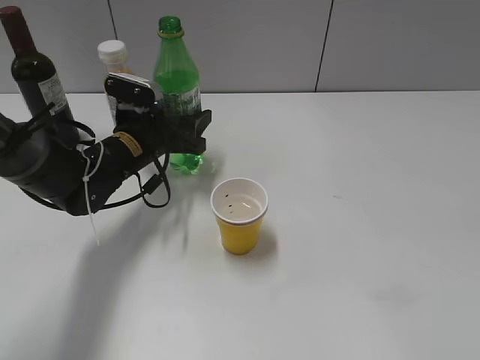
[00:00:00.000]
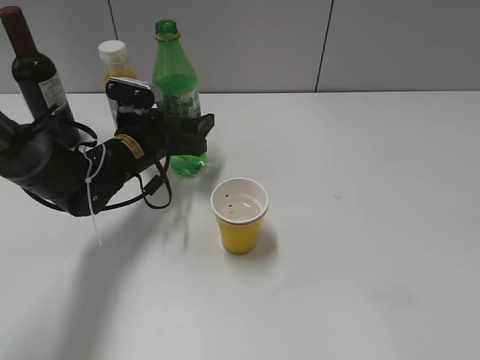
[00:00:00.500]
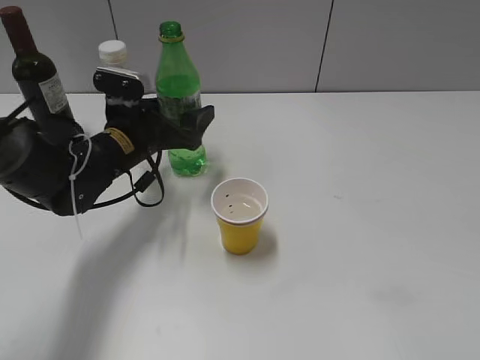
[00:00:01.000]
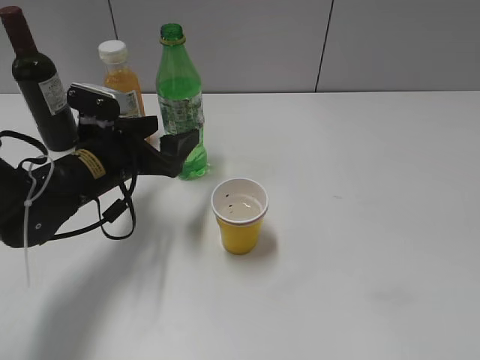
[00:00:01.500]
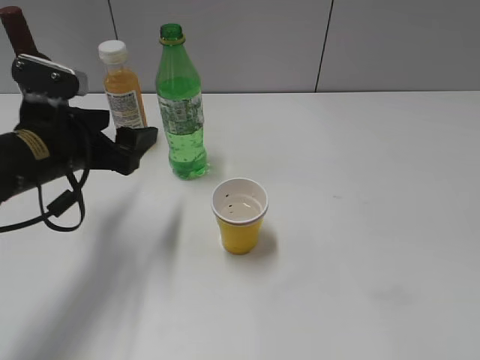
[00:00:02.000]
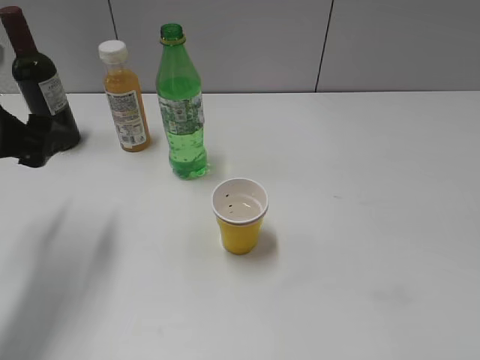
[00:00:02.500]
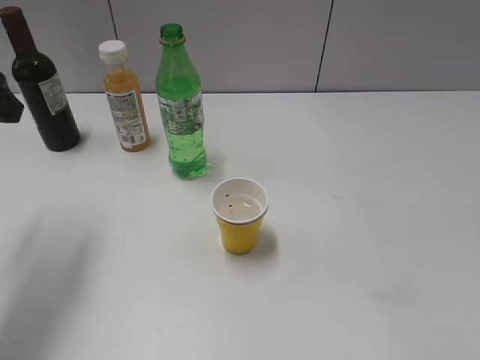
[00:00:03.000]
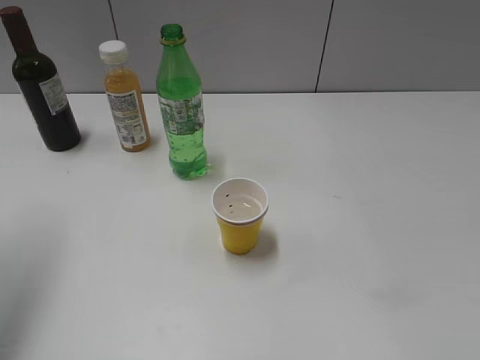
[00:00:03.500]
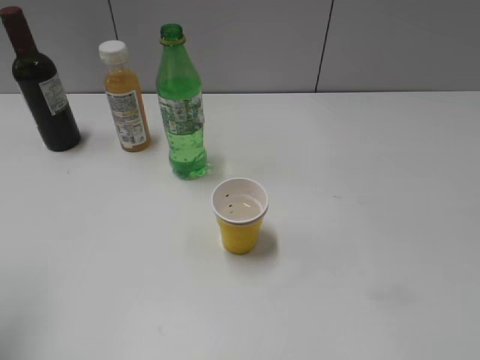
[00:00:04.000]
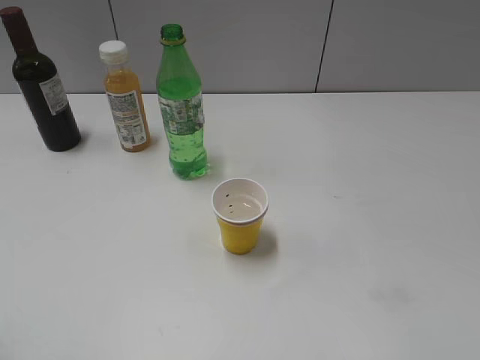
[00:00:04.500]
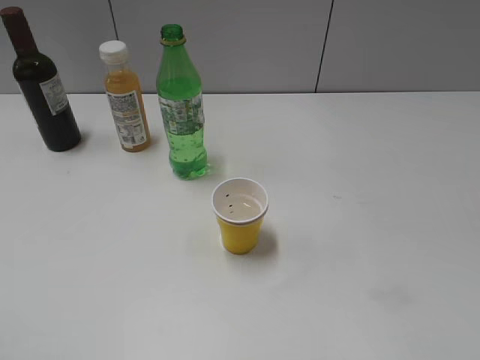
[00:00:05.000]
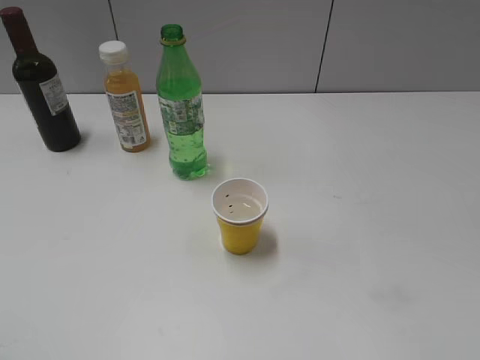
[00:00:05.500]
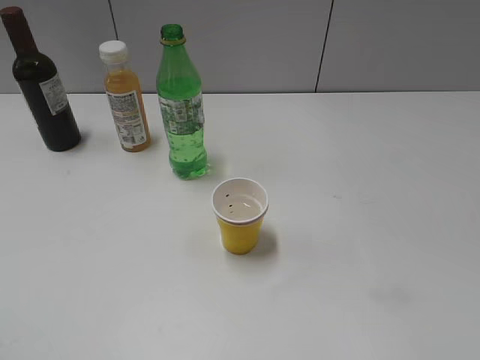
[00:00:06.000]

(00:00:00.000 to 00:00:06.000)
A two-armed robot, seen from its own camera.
00:00:00.000 - 00:00:02.000: The left gripper travels backward, upward and to the left by approximately 15 cm, and opens up.
00:00:02.000 - 00:00:04.000: The left gripper is displaced upward, backward and to the left by approximately 25 cm, and closes up.

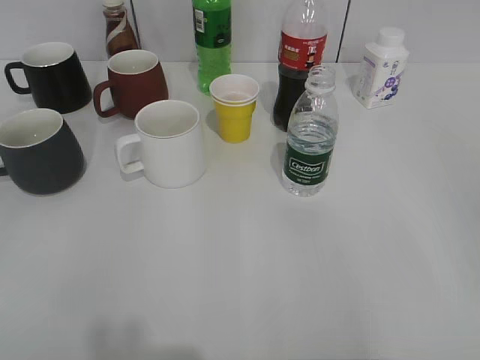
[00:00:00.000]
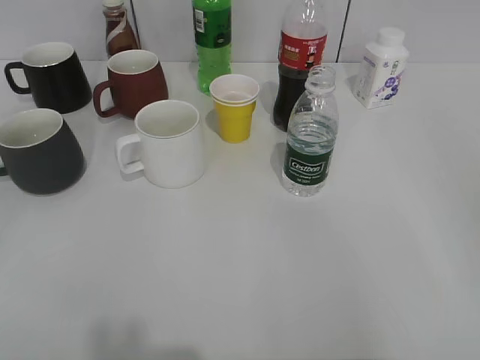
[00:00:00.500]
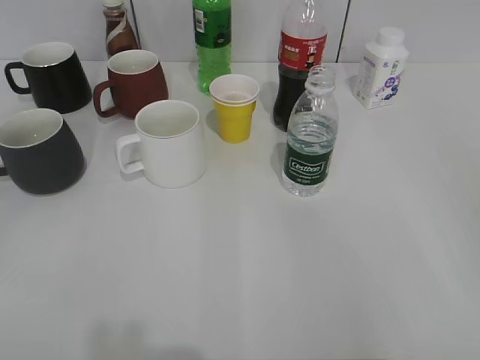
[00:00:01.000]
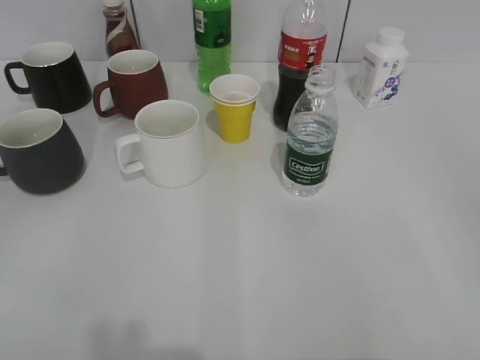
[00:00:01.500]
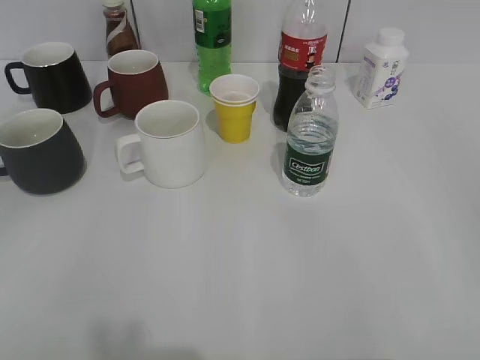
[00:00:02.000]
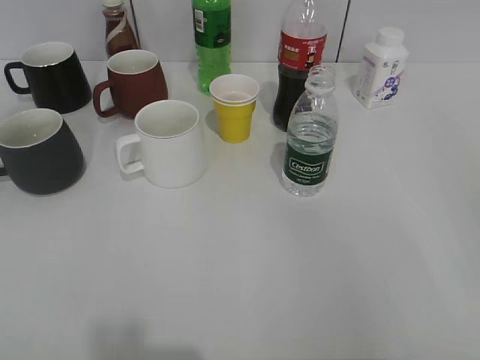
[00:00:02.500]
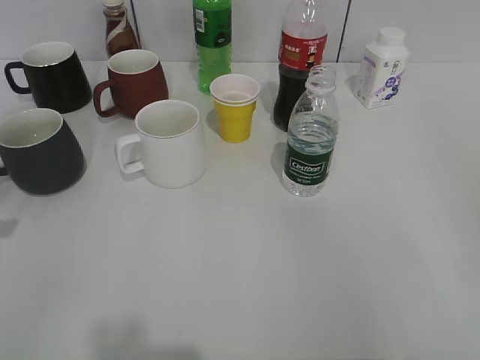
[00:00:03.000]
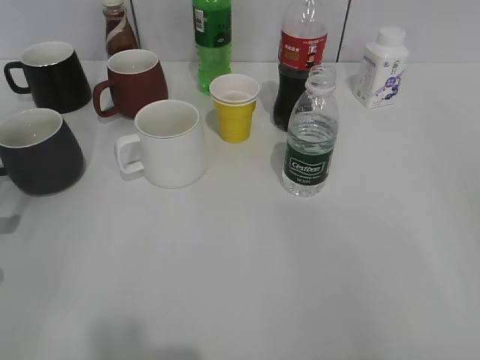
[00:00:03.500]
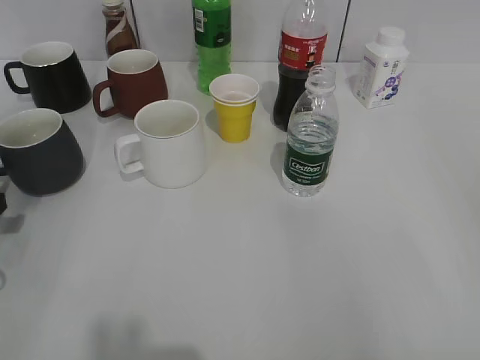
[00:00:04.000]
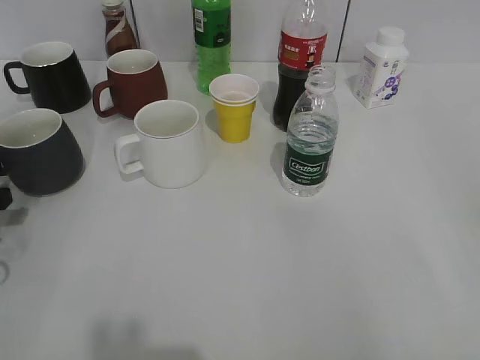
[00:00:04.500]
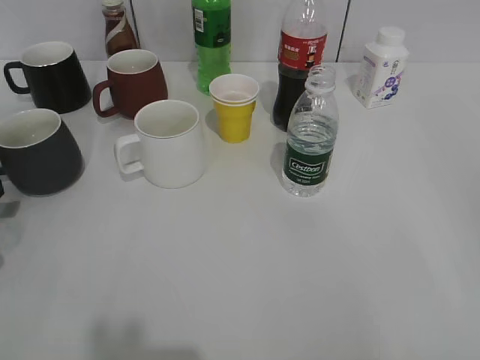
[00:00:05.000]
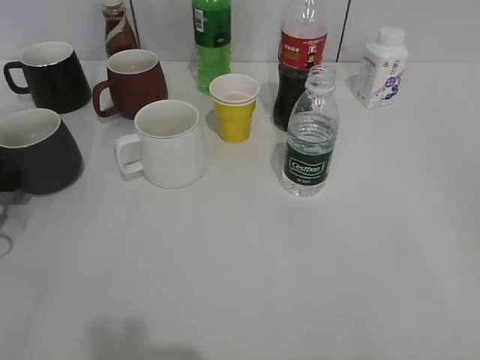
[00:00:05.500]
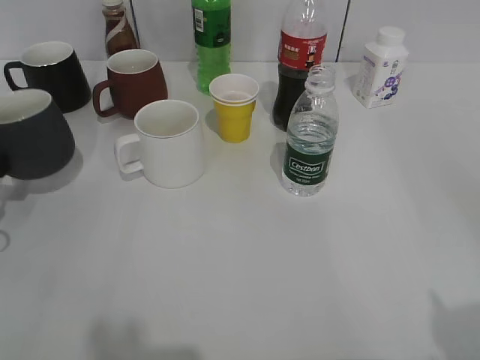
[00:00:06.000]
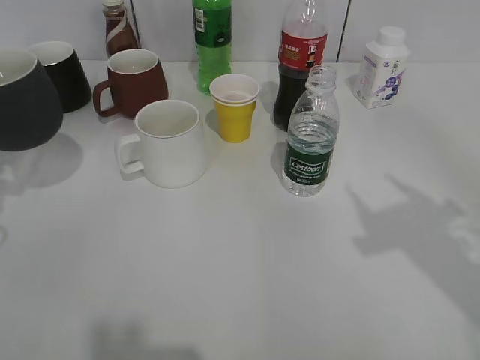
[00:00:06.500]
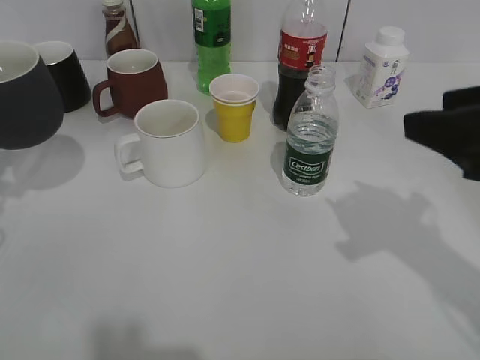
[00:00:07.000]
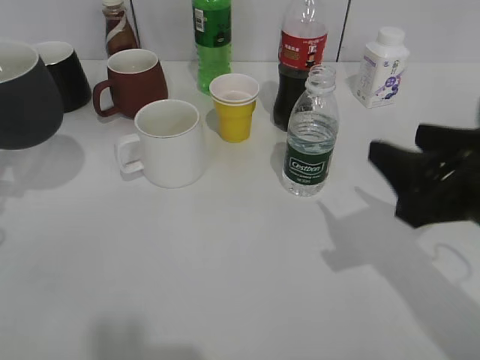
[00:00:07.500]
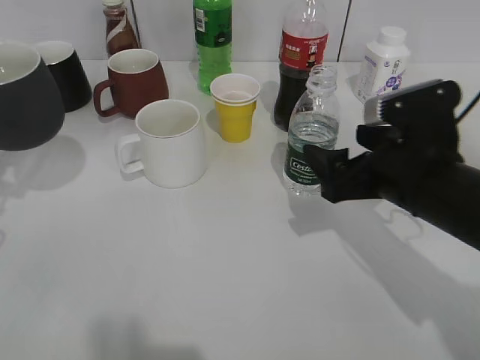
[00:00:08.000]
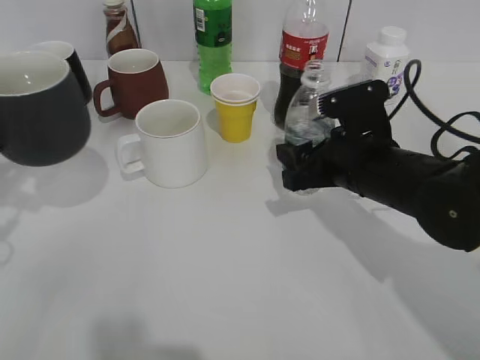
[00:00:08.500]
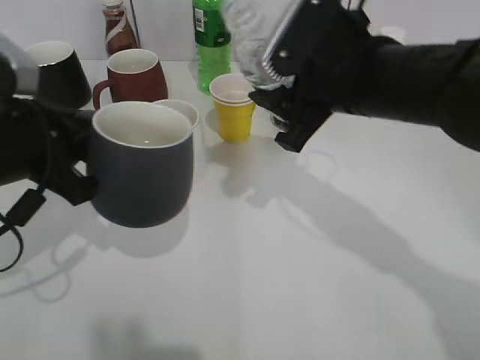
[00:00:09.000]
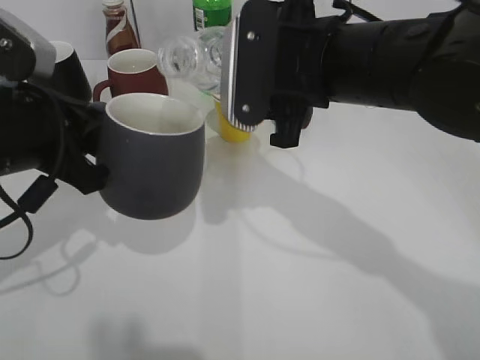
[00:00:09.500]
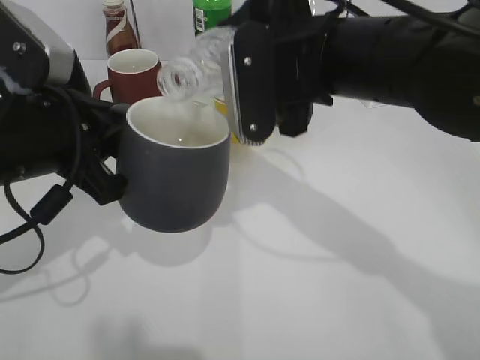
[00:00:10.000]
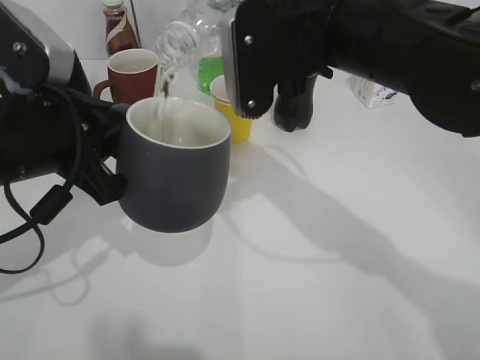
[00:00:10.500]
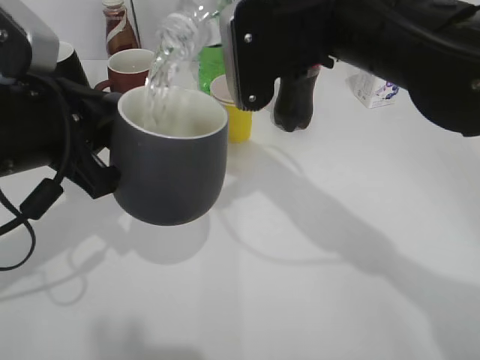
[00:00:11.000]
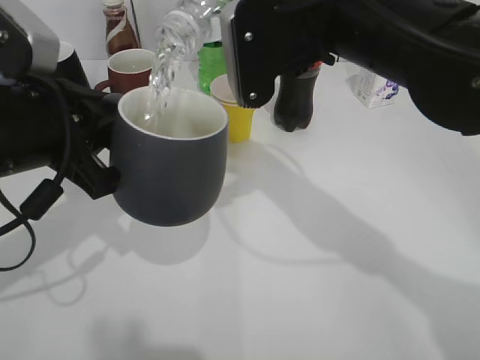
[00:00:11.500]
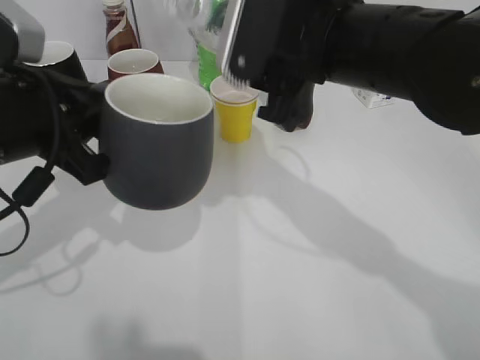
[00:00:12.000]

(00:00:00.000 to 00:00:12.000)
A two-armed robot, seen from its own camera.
Step, 00:00:07.000 - 00:00:08.000: Grasp the bottle with water with right gripper.
00:00:02.000 - 00:00:04.000: The left gripper is displaced forward and downward by some 30 cm.
00:00:04.000 - 00:00:06.000: The left gripper changes place by roughly 5 cm, and closes.
00:00:06.000 - 00:00:08.000: The left gripper travels upward by approximately 5 cm; the right gripper heads forward, downward and to the left, covering about 30 cm, and opens.
00:00:08.000 - 00:00:10.000: The right gripper travels to the left and upward by some 15 cm, and closes its fingers. Meanwhile the left gripper goes roughly 15 cm to the right.

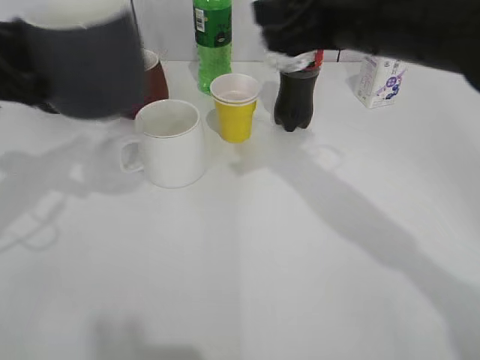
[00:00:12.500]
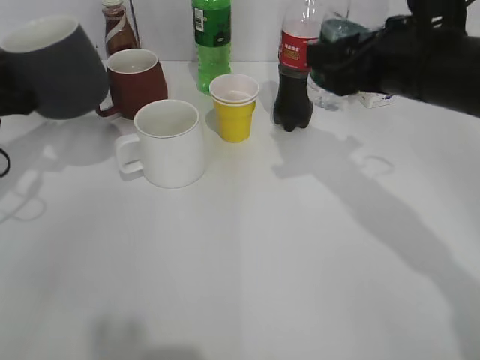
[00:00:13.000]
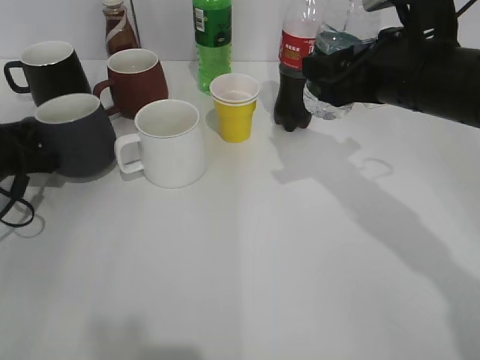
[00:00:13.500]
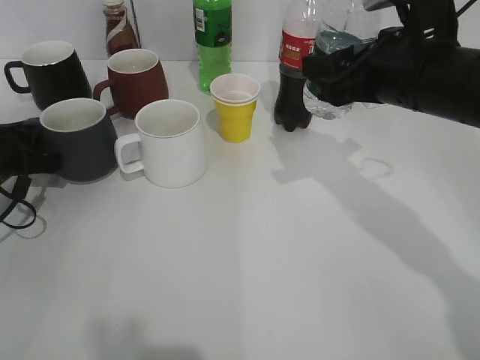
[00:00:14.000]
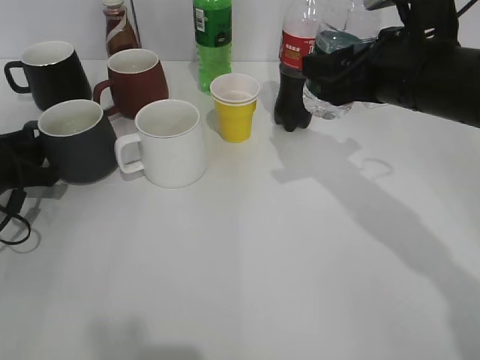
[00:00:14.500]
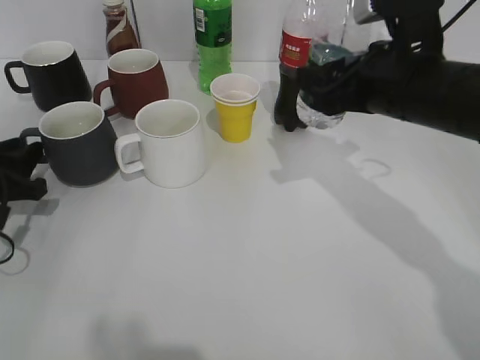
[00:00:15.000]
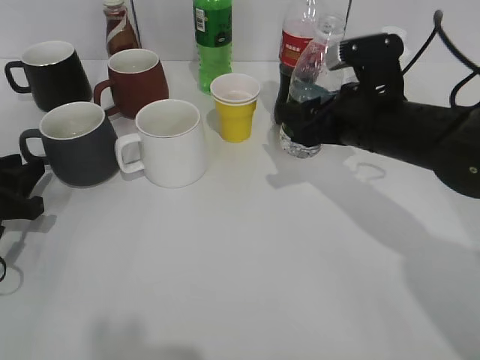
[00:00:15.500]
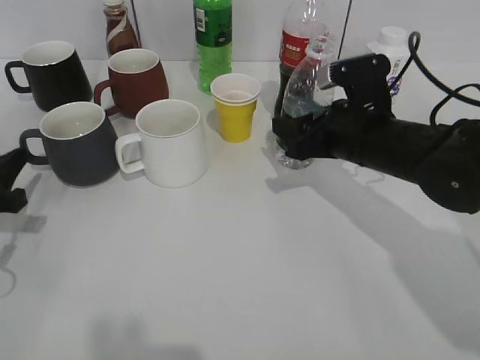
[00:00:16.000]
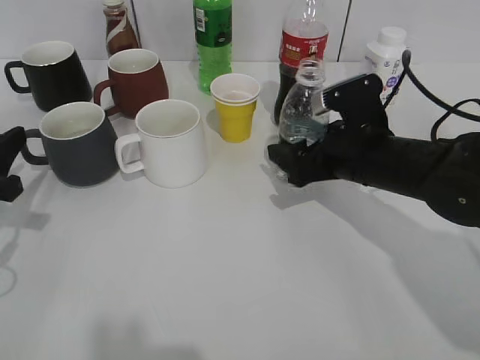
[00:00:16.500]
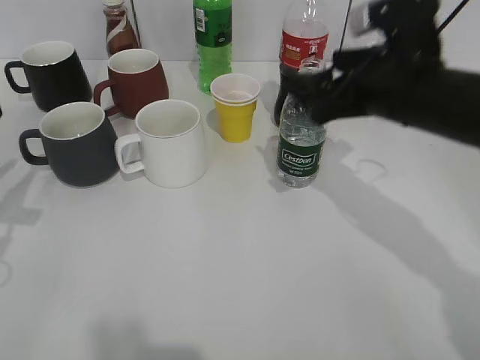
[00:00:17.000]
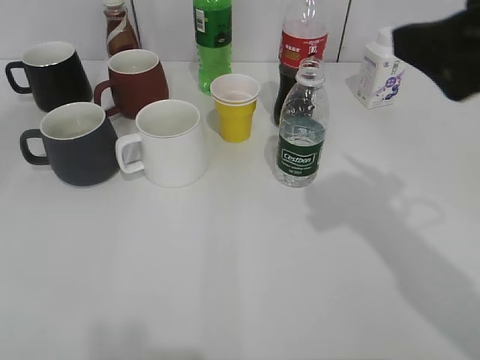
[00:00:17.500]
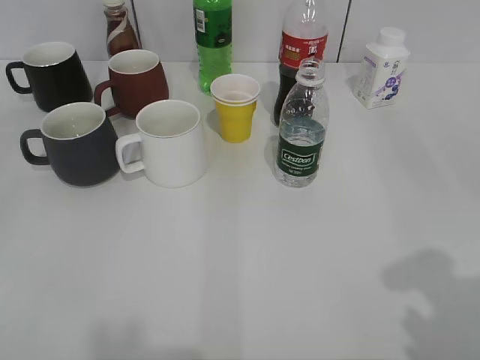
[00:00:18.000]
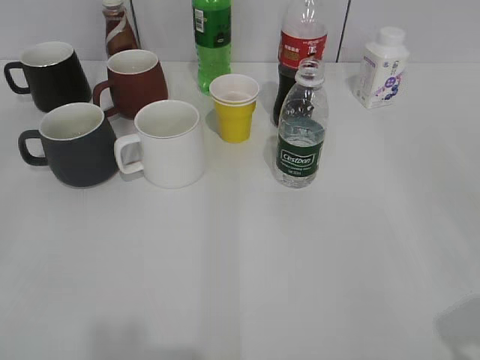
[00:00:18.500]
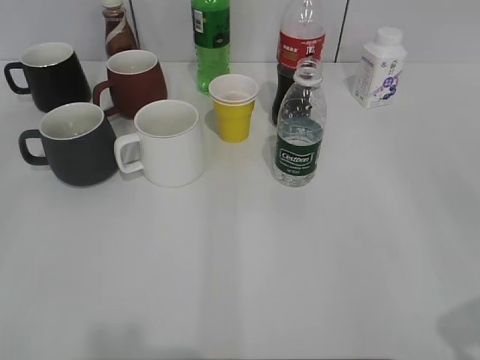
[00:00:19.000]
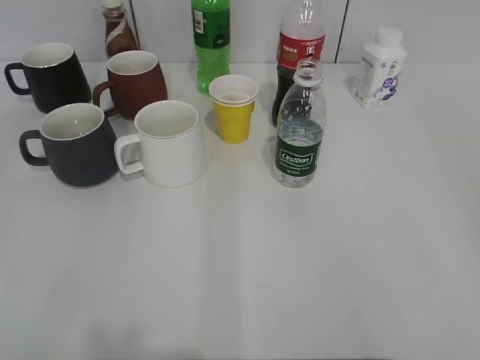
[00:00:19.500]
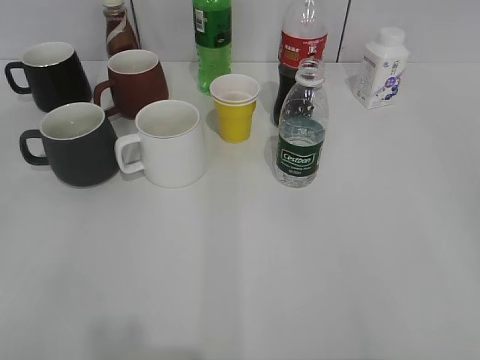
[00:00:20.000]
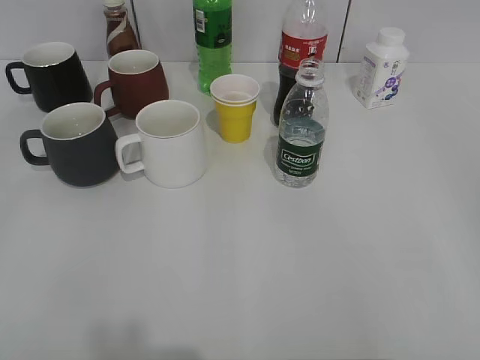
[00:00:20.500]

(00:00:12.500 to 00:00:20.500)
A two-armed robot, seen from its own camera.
Step, 00:00:12.500 - 00:00:14.500: Place the black cup on the table with left gripper.
Step, 00:00:15.000 - 00:00:16.500: Place the water bottle on the table with right gripper.
00:00:12.500 - 00:00:14.500: The right gripper heads downward and to the right, covering some 5 cm. Meanwhile the left gripper travels downward by about 15 cm, and opens its fingers.
00:00:14.500 - 00:00:16.500: The left gripper moves backward and upward, approximately 10 cm. The right gripper moves downward, roughly 10 cm, and opens up.
00:00:16.500 - 00:00:18.500: The left gripper goes roughly 25 cm backward and upward, and opens. Meanwhile the right gripper heads backward, to the right and upward, covering some 35 cm.
00:00:18.500 - 00:00:20.500: The left gripper closes up.
